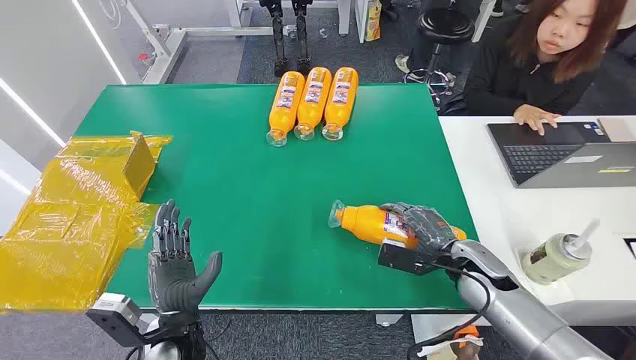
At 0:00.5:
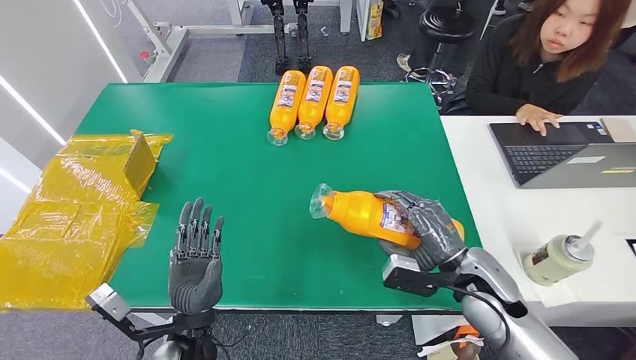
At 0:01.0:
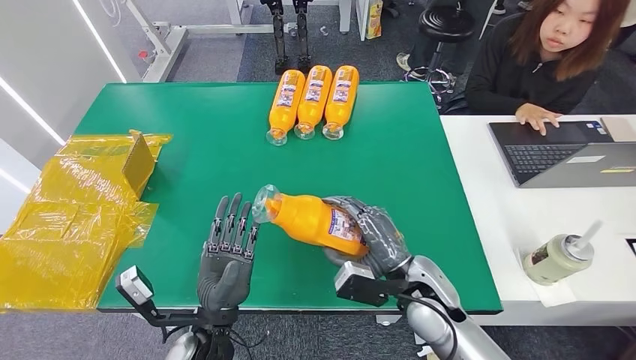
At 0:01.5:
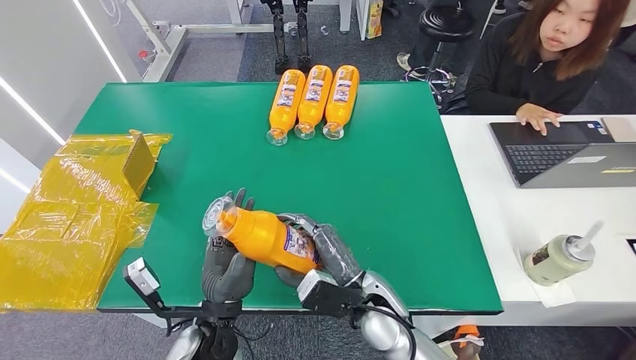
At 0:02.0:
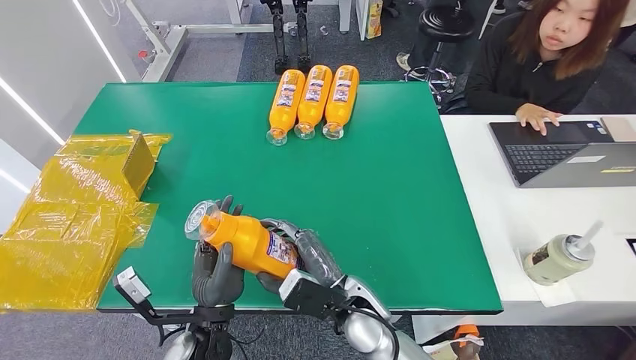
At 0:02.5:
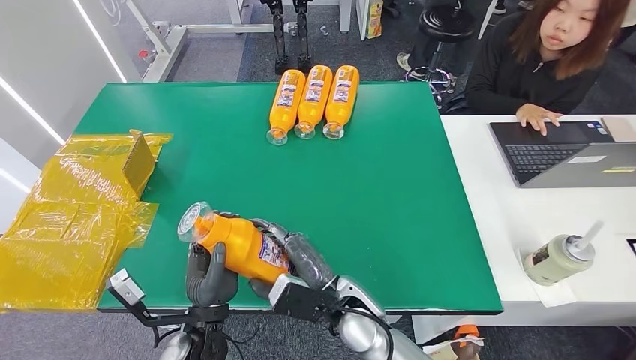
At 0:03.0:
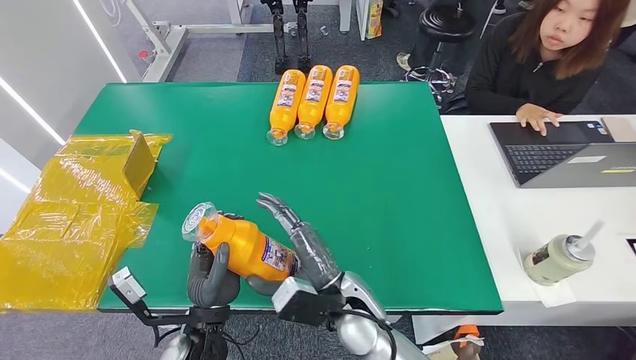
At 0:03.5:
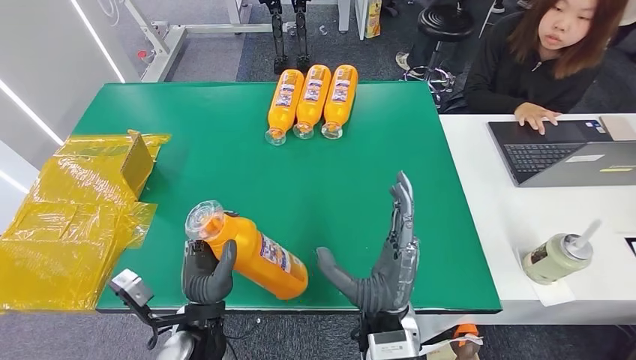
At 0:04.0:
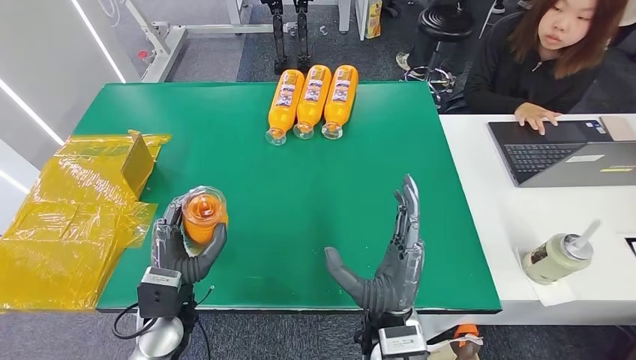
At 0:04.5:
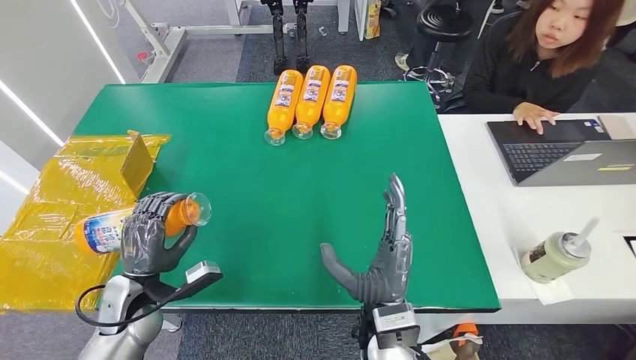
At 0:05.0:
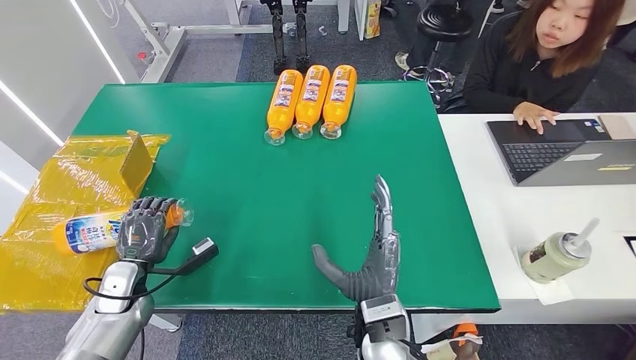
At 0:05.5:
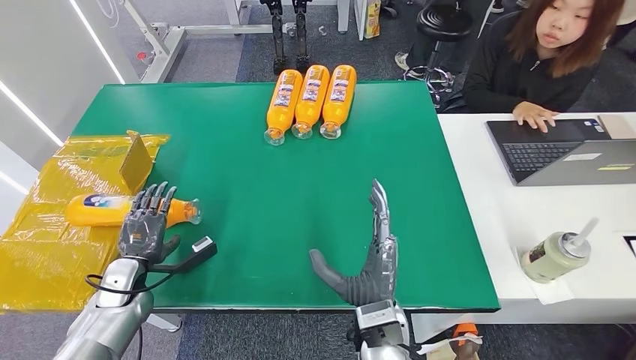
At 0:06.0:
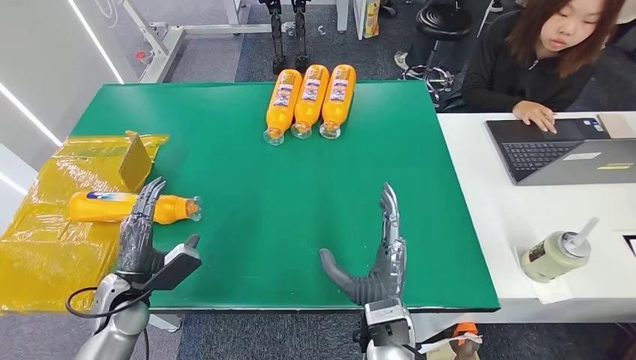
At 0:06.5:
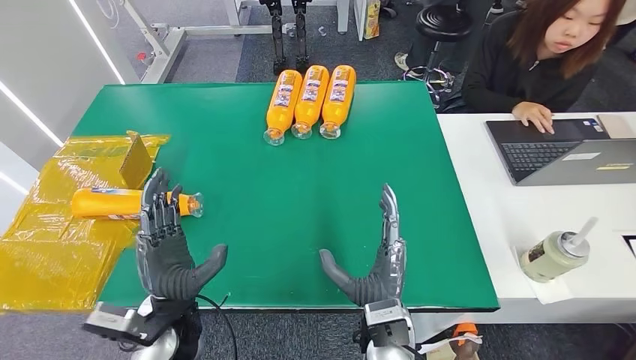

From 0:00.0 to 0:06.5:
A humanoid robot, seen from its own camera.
Step, from 0:00.0 to 0:01.5: Pick up the bottle from the table.
Step, from 0:02.0 to 0:06.5: Turn the bottle to the front side.
From 0:02.0 to 0:04.5: The left hand shifts about 20 cm to the left, while the right hand changes place by about 5 cm.
From 0:04.5 to 0:06.5: The left hand shifts some 15 cm to the right.

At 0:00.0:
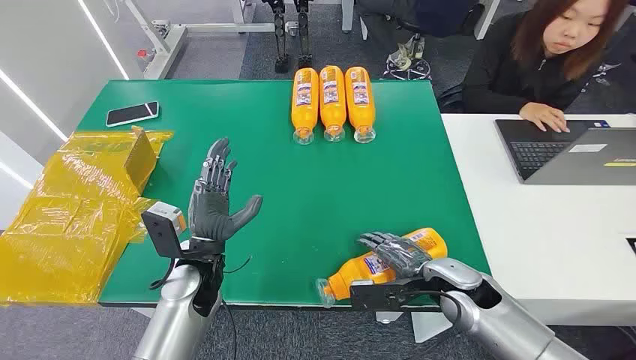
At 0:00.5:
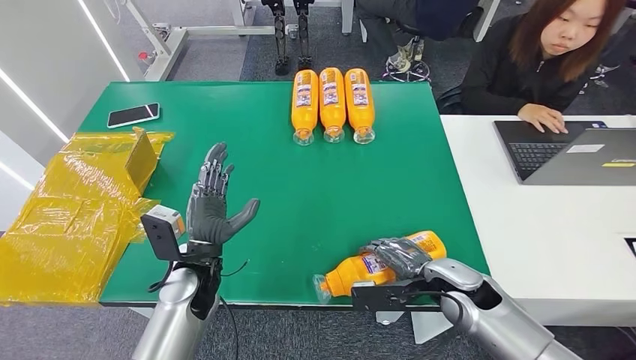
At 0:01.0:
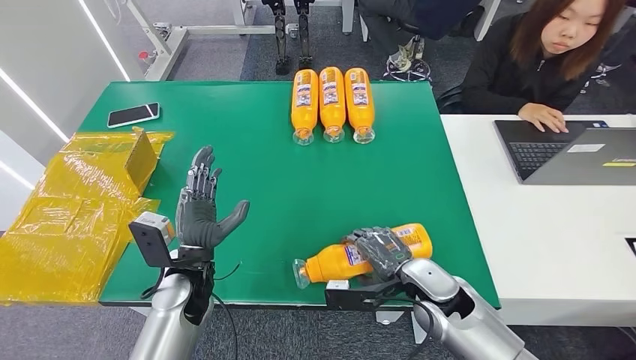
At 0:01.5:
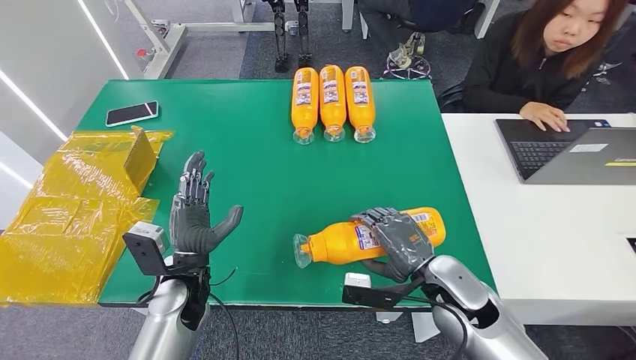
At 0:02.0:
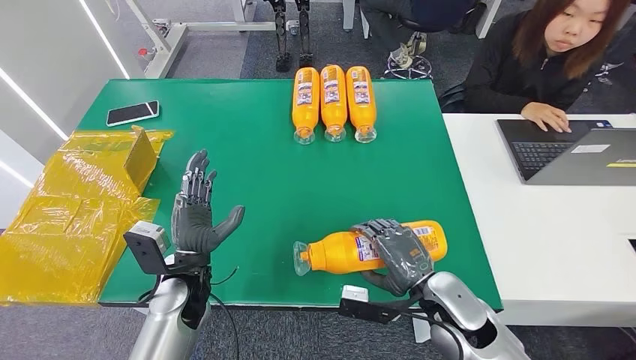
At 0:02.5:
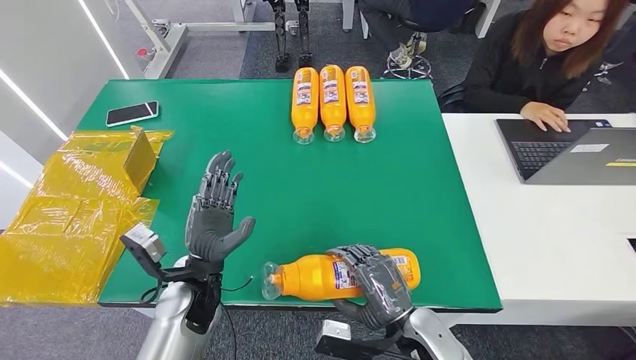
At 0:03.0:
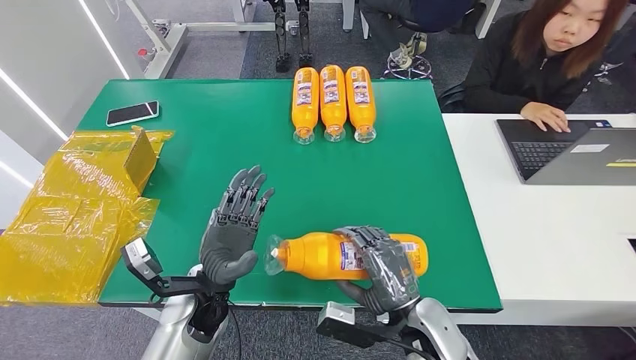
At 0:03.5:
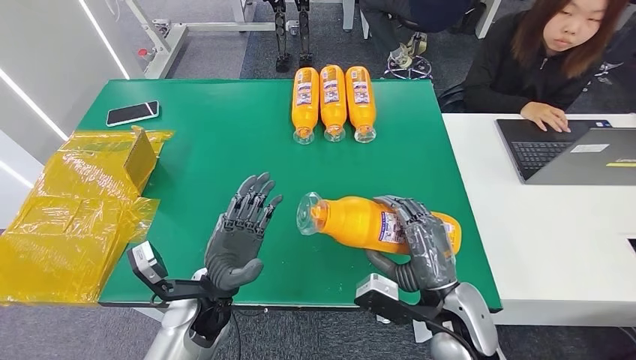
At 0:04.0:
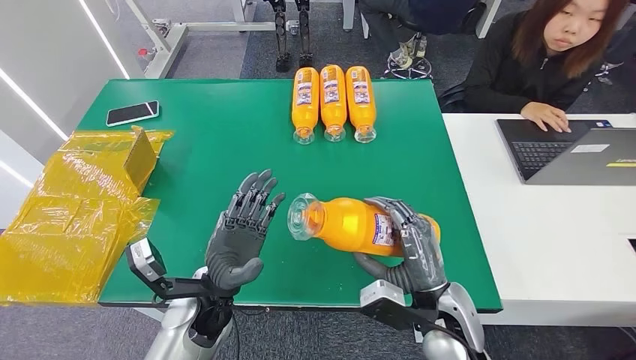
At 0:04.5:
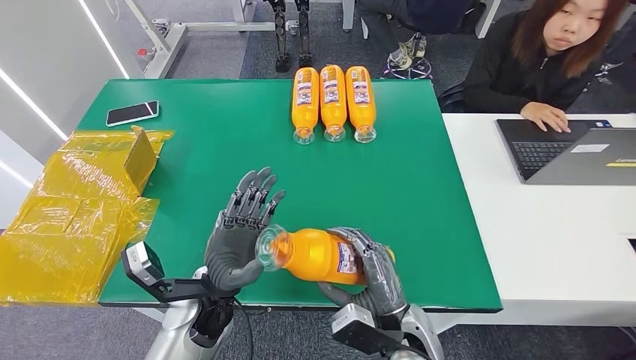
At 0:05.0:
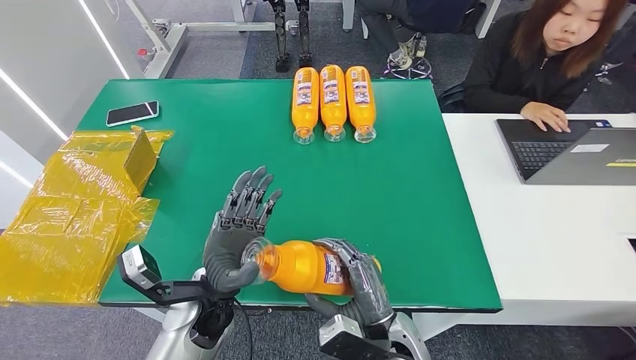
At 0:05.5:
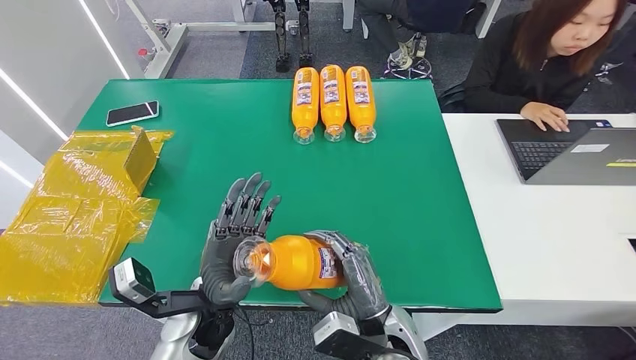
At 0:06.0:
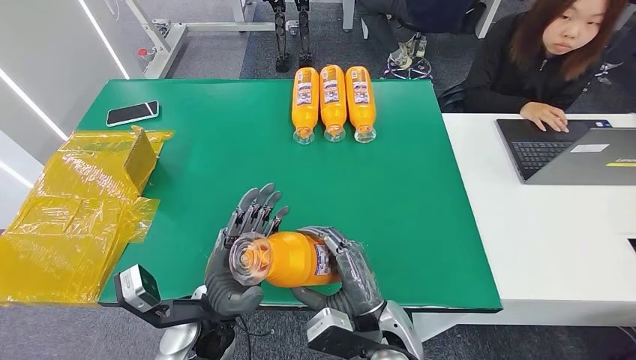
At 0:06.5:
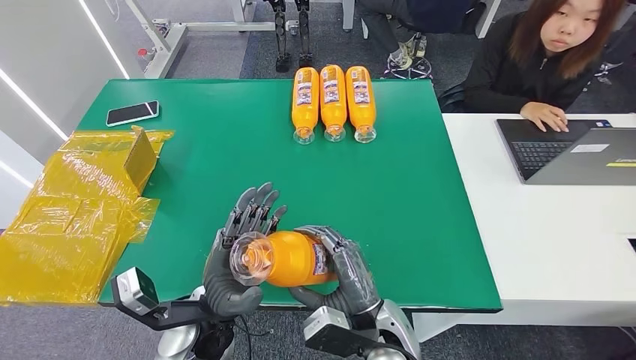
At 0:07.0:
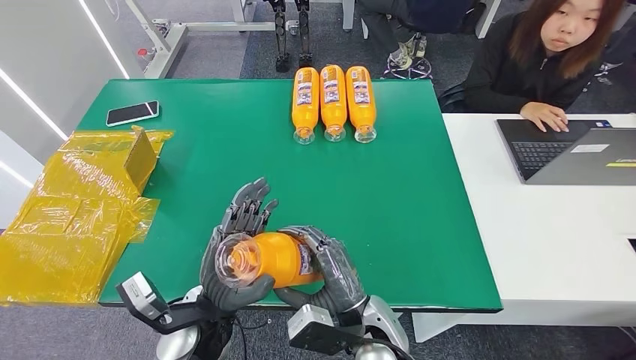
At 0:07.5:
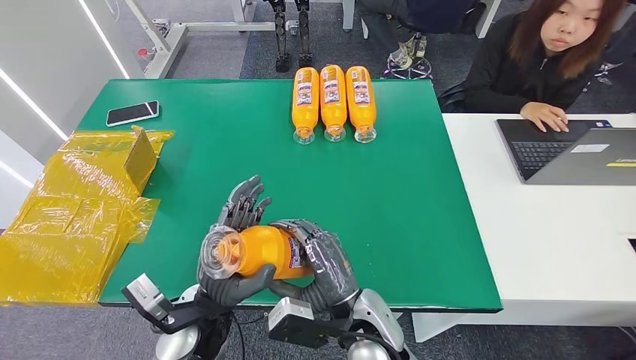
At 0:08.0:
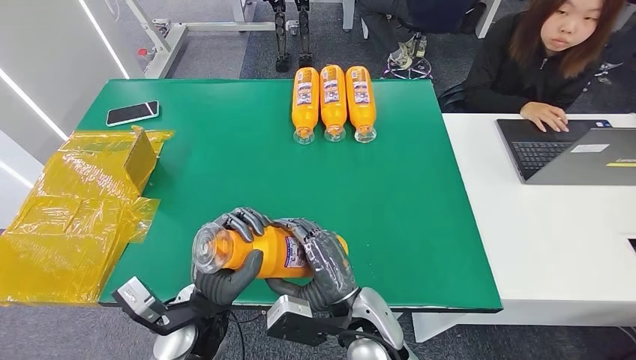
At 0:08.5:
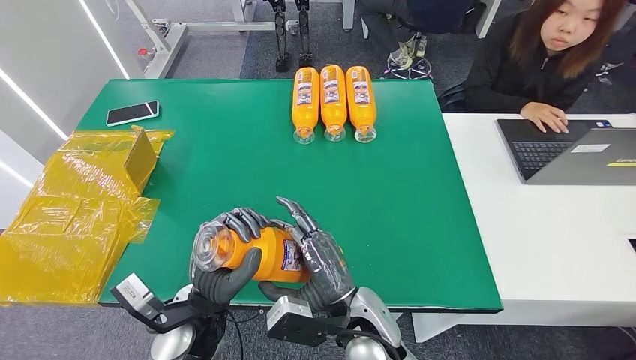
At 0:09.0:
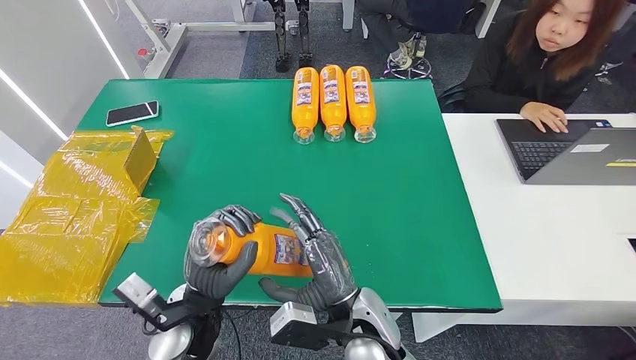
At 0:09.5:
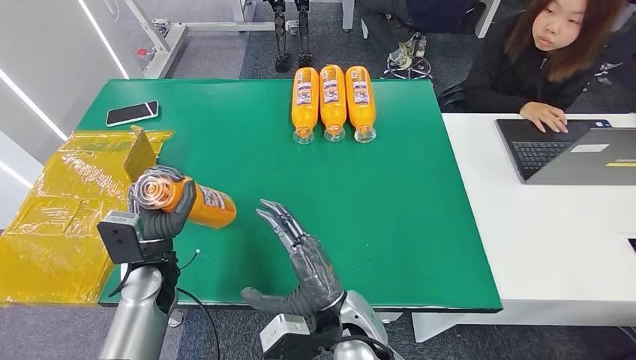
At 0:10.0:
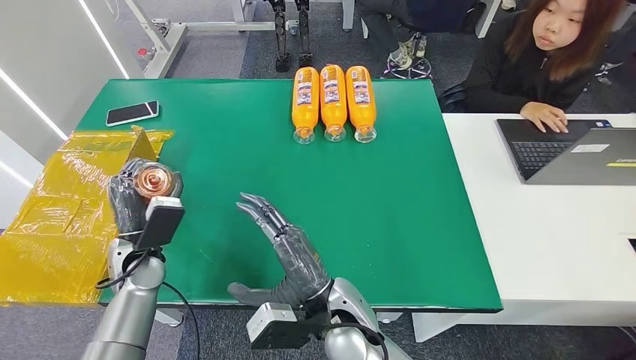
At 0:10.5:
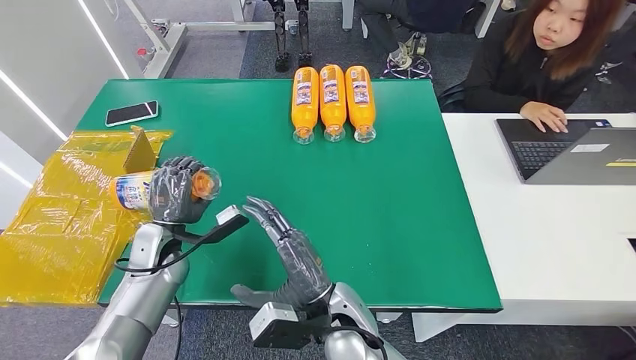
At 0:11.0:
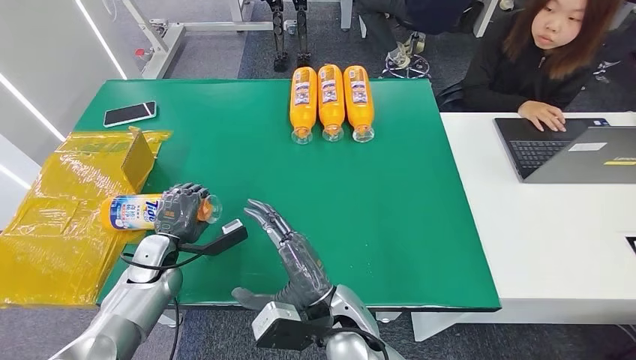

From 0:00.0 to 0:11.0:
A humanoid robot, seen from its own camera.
Step, from 0:00.0 to 0:05.5: Pick up the bottle from the table.
From 0:03.5 to 0:05.5: The right hand travels to the left by roughly 10 cm.
From 0:05.5 to 0:07.5: The right hand changes place by roughly 5 cm.
From 0:07.5 to 0:09.0: The hands move only a little.
From 0:09.0 to 0:11.0: The left hand moves to the left and forward, about 20 cm.

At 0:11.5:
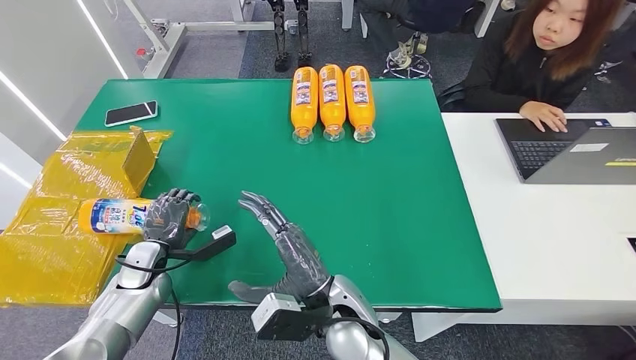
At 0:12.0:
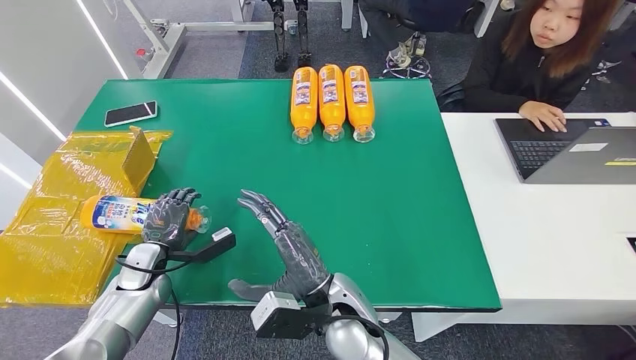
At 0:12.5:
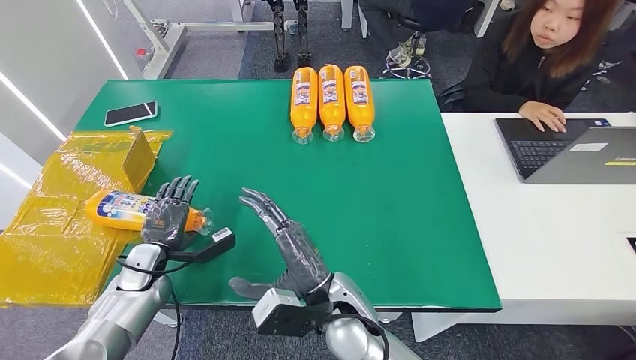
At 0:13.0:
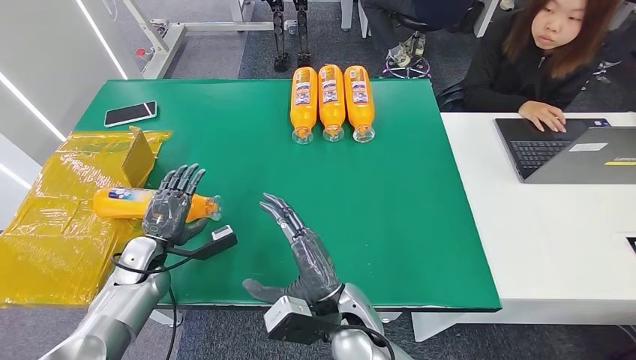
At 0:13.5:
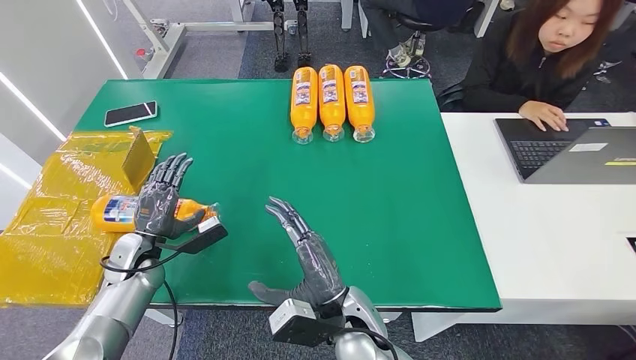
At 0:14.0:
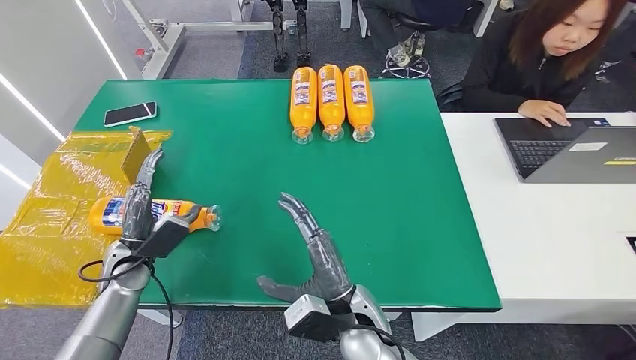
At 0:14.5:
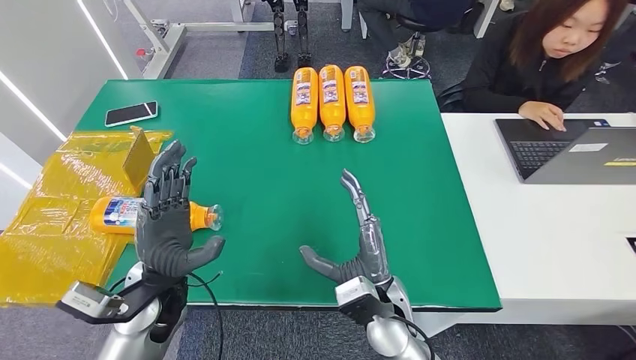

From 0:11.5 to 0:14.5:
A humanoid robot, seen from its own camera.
Step, from 0:11.5 to 0:14.5: Turn the bottle to the front side.
From 0:11.5 to 0:13.0: The hands stay close to where they were, moving slightly.
From 0:13.0 to 0:14.5: The left hand heads to the right and upward, covering approximately 15 cm. Meanwhile the right hand shifts some 5 cm to the right.
